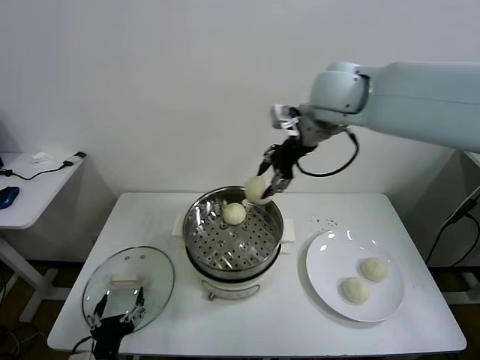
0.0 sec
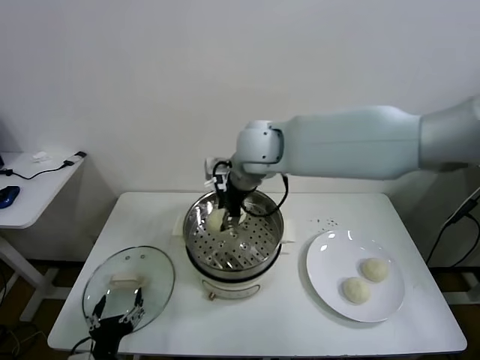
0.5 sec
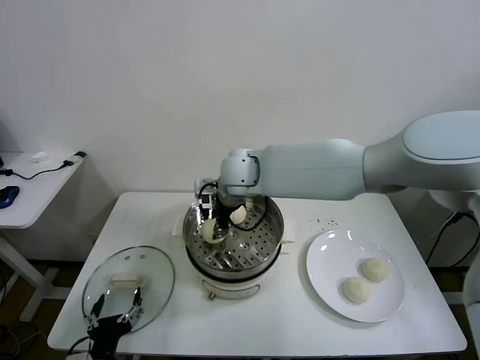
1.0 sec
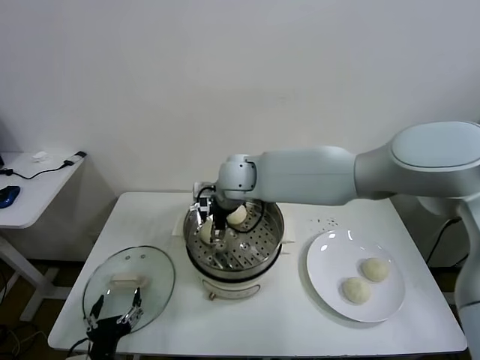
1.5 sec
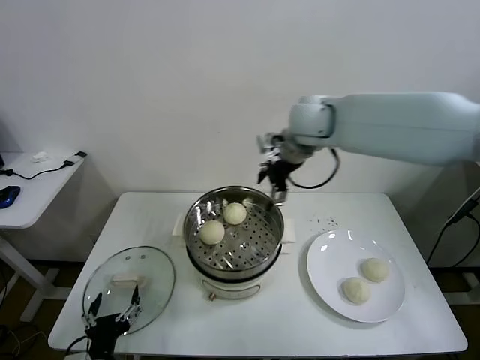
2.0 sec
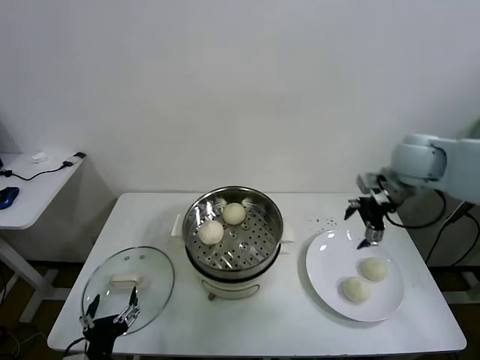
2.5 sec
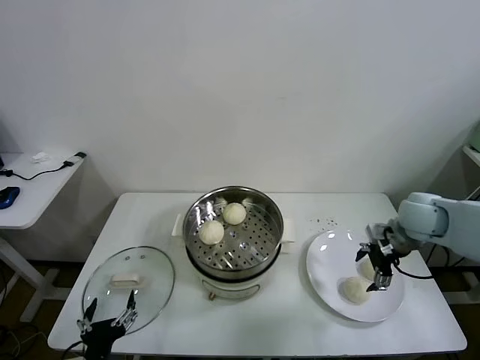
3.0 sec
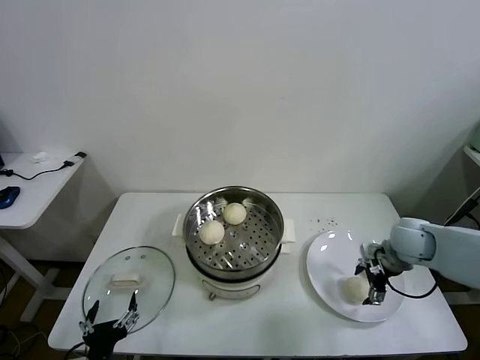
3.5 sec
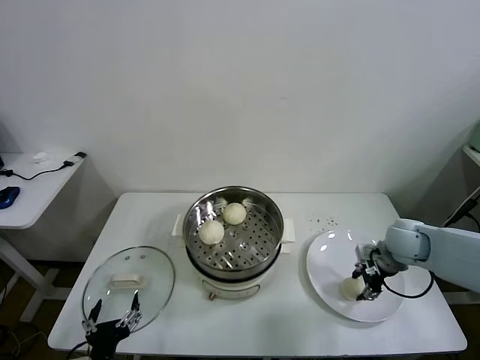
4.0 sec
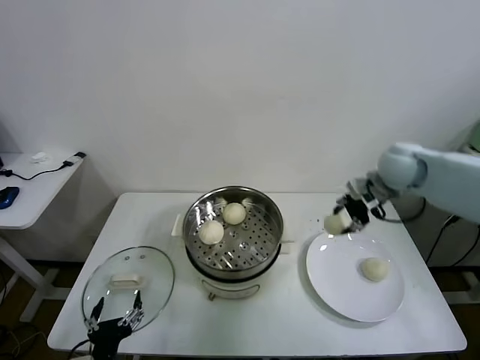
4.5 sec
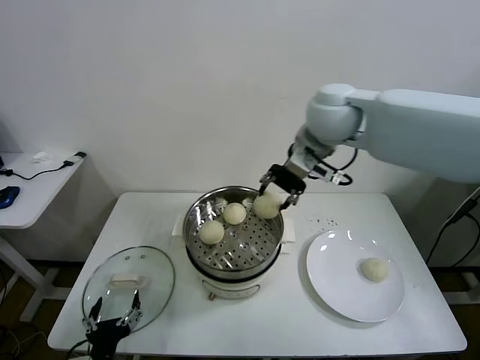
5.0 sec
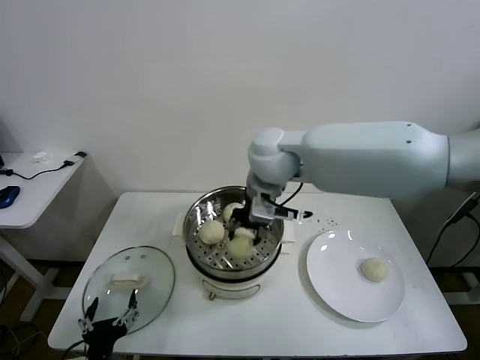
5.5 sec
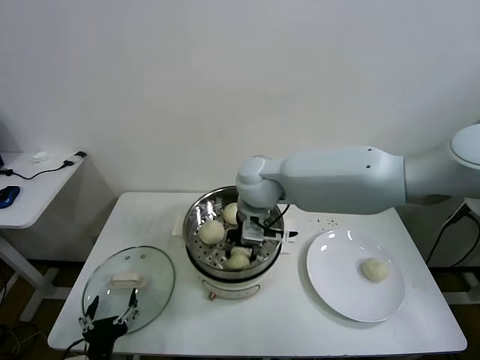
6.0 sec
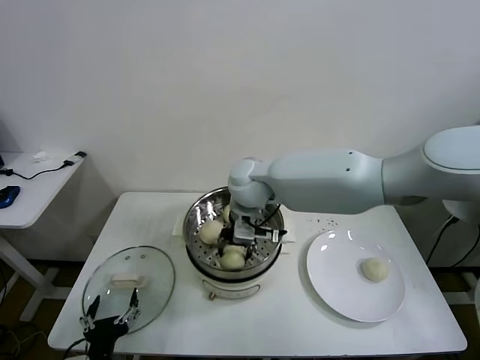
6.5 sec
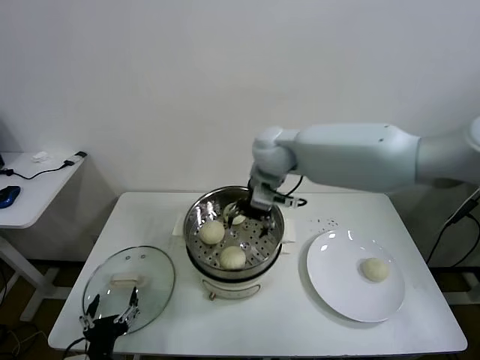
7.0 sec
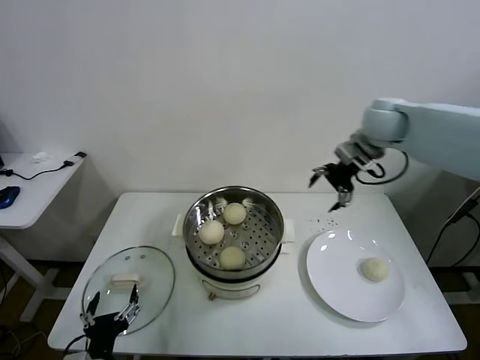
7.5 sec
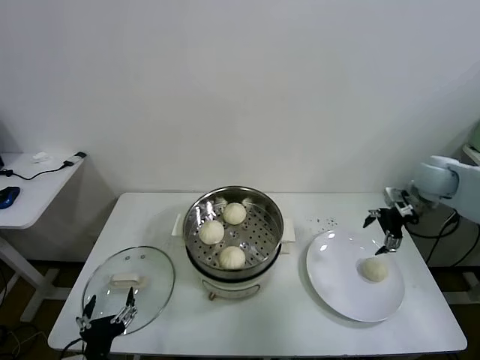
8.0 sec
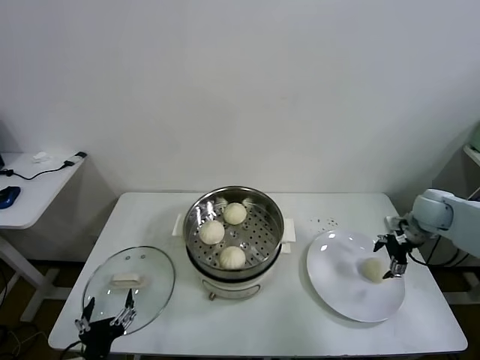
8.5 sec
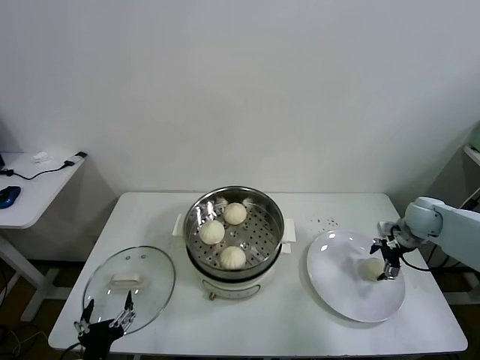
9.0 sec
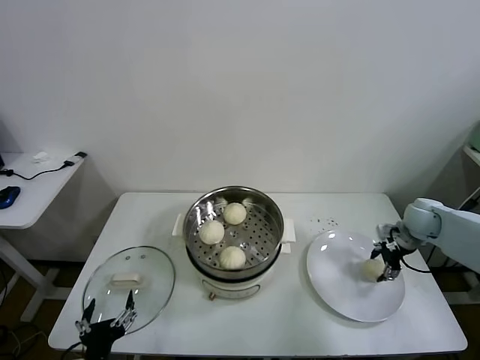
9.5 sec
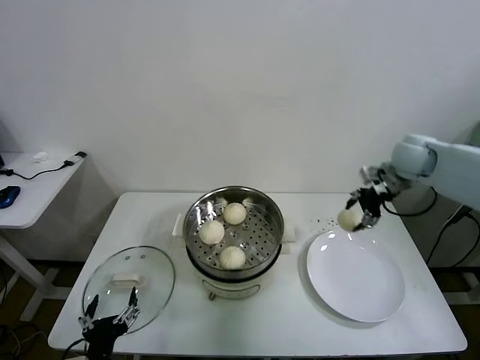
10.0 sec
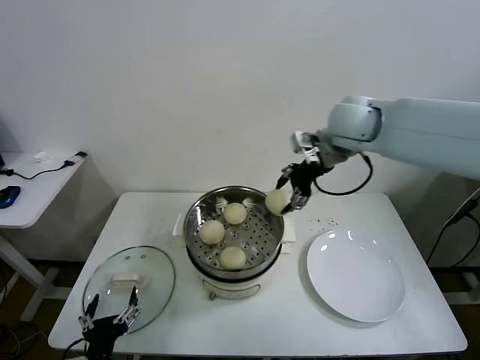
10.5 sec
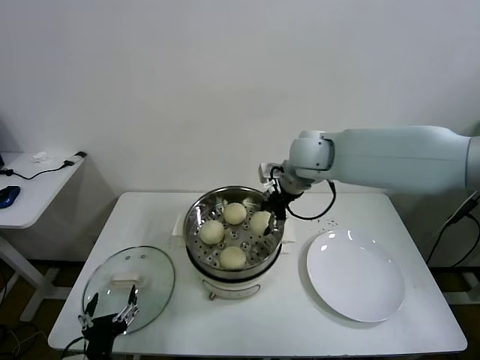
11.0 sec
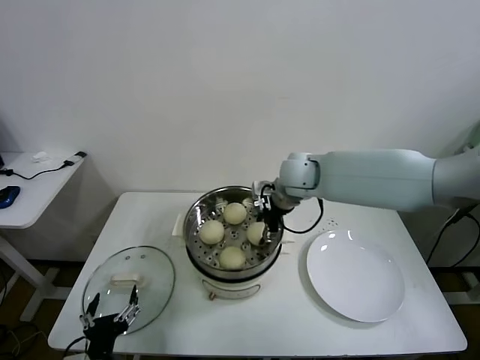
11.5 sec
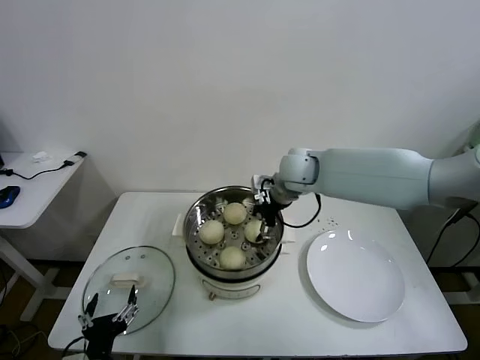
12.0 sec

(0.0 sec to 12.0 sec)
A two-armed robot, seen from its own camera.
Task of the whole recording: take steamed baozi put them in steamer.
Step, 0.0 sec - 1.5 sec: Place the baozi on the steamer with right gripper.
Step, 2.0 sec - 3.5 sec: Grasp the baozi in the plate with right gripper.
Step, 4.0 sec - 6.5 sec: Place the baozi on the steamer with right gripper.
Step, 7.0 sec - 9.0 sec: Grasp the baozi in the plate with right gripper.
Step, 9.5 sec - 12.0 sec: Place the baozi on the steamer with right gripper.
0.0 sec - 2.0 sec: The right gripper heads downward, covering approximately 5 cm, reaches some 15 cm to the left, then returns, and opens its fingers.
2.0 sec - 4.0 sec: The right gripper moves downward, to the right and backward, about 35 cm, and closes up.
4.0 sec - 6.0 sec: The right gripper heads to the left and upward, covering about 35 cm.
6.0 sec - 8.0 sec: The right gripper moves to the right, about 40 cm, and opens.
8.0 sec - 10.0 sec: The right gripper goes some 10 cm to the left and upward, and closes.
10.0 sec - 12.0 sec: The right gripper travels to the left by approximately 25 cm, and opens its fingers.

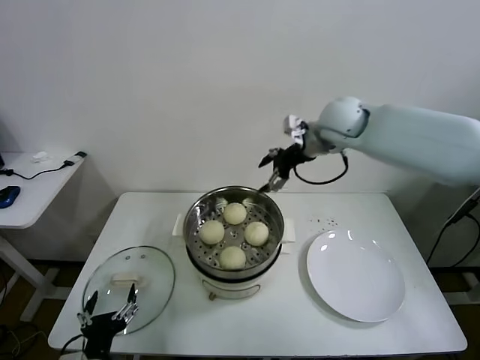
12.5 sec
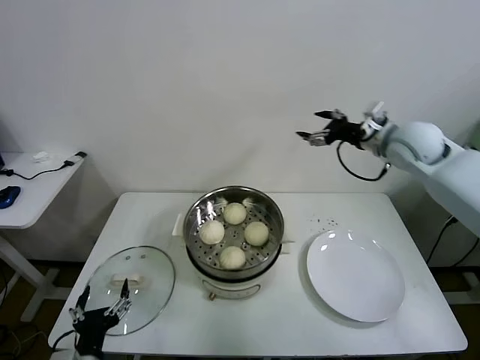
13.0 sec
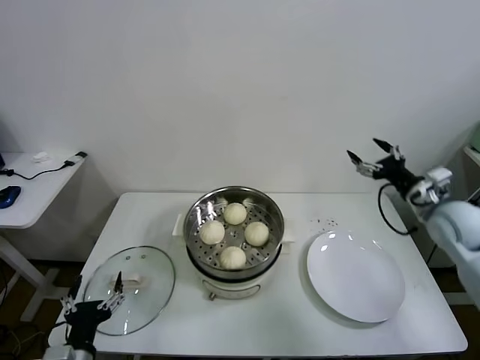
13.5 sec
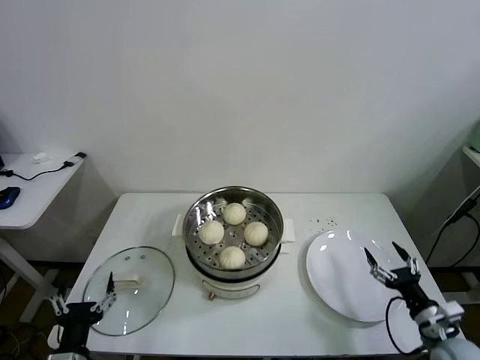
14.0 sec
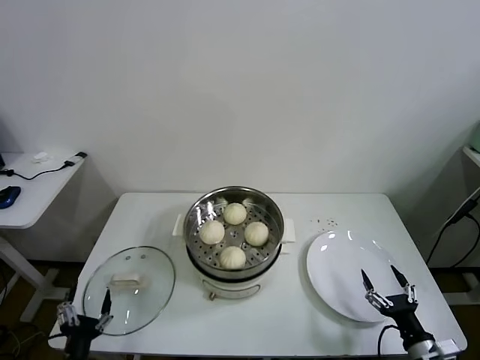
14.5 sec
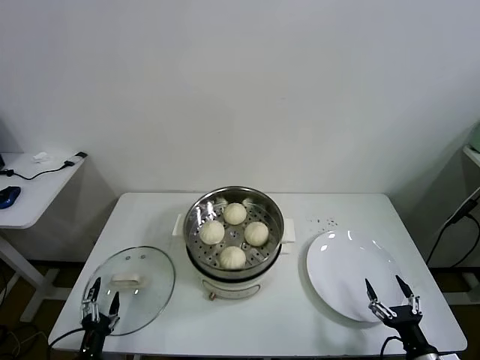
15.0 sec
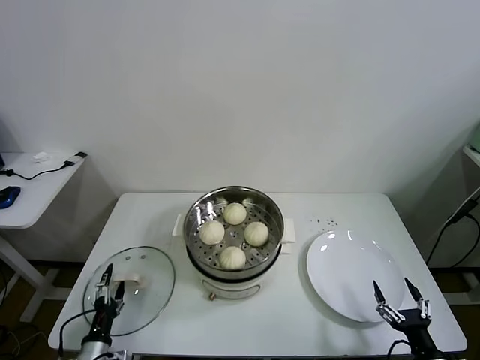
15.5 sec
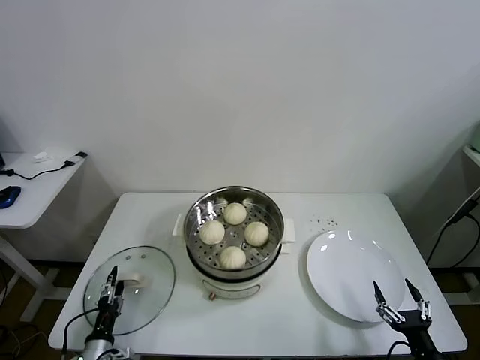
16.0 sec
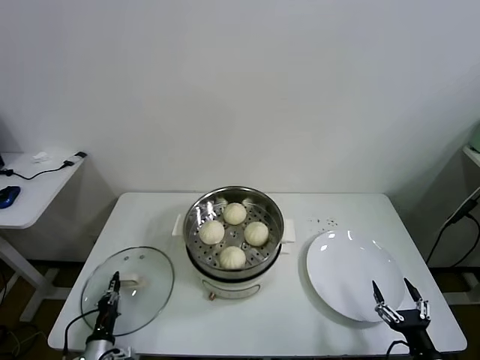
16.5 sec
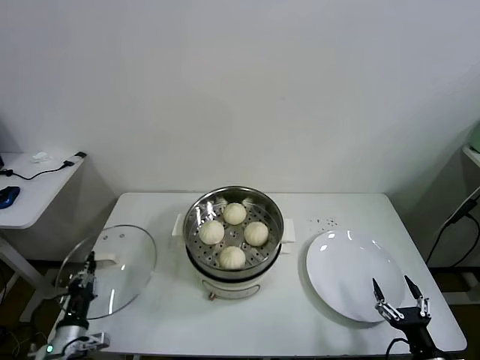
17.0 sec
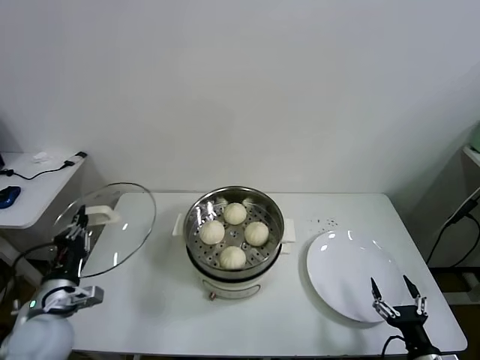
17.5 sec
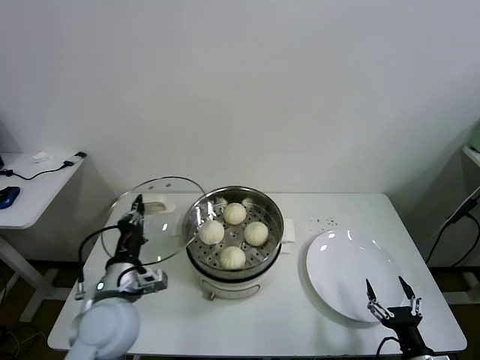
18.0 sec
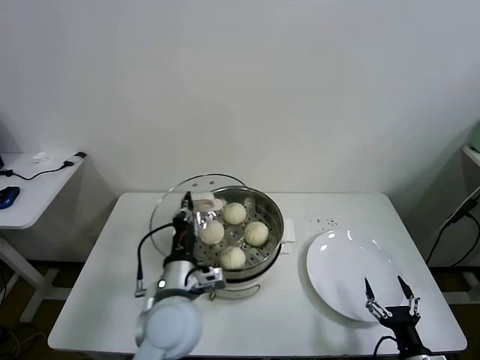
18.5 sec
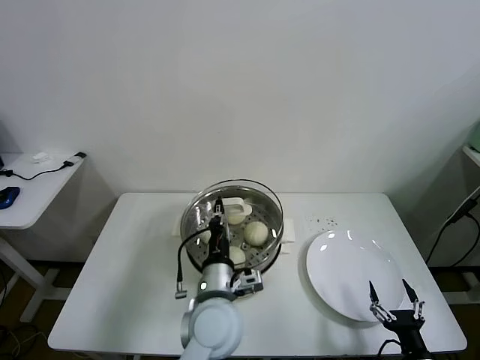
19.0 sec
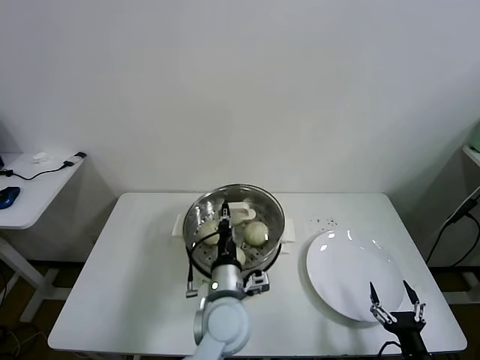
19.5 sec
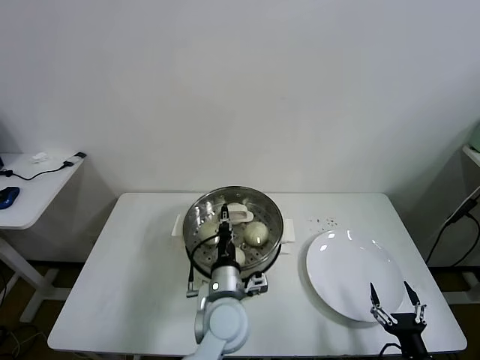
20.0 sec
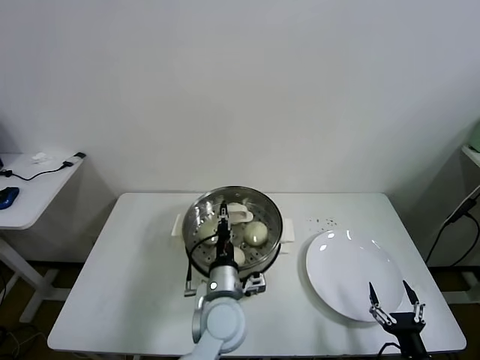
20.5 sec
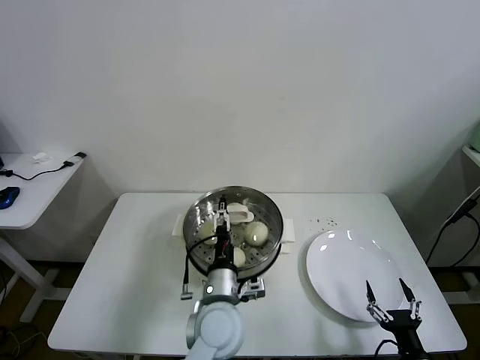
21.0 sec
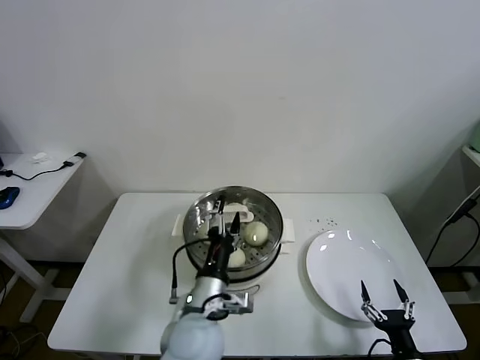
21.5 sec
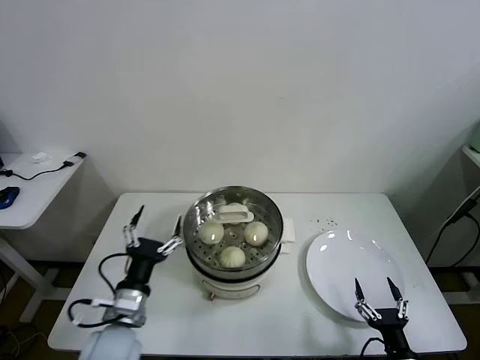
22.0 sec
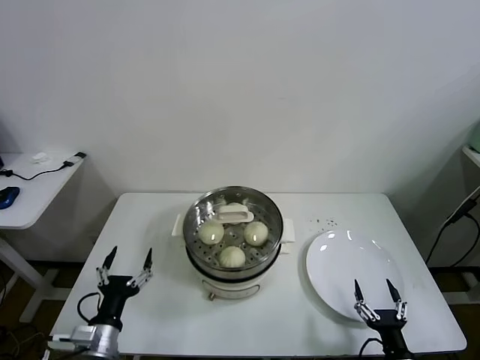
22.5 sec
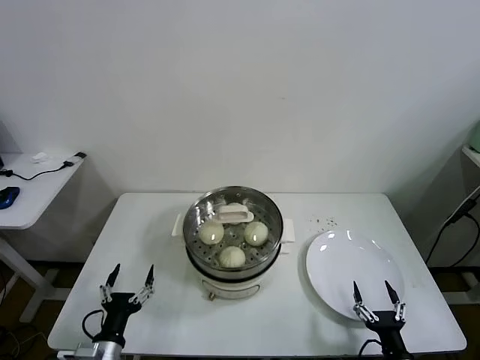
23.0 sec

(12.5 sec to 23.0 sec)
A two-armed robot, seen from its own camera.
Task of the whole recording: take steamed baozi put them in steamer.
Step, 12.5 sec - 16.5 sec: Grasp the pot lid with left gripper.
Step, 17.0 sec - 20.5 sec: Place the pot lid on the steamer with left gripper.
12.5 sec - 14.5 sec: The right gripper travels backward, downward and to the right by roughly 60 cm. The left gripper is displaced downward and to the left by some 10 cm.
14.5 sec - 16.5 sec: The left gripper heads downward and forward, covering roughly 15 cm, and closes up.
16.5 sec - 19.0 sec: The left gripper shifts some 40 cm to the right and upward.
19.0 sec - 21.0 sec: The left gripper opens up.
21.0 sec - 23.0 sec: The left gripper moves to the left and backward, about 30 cm.
